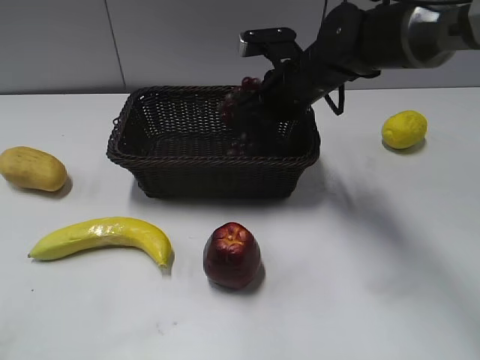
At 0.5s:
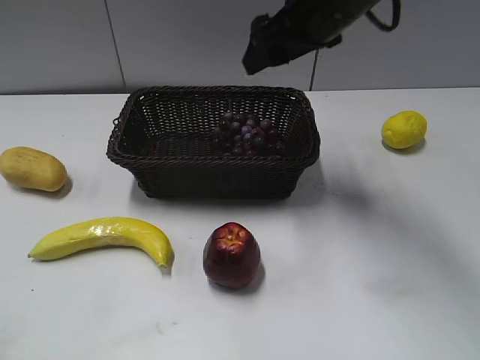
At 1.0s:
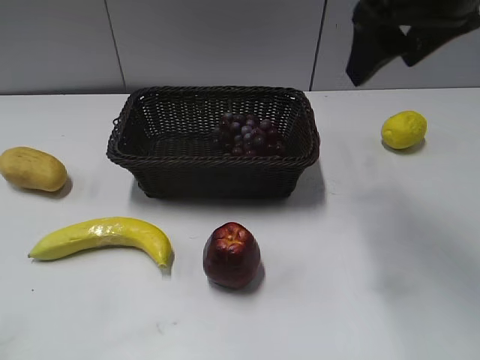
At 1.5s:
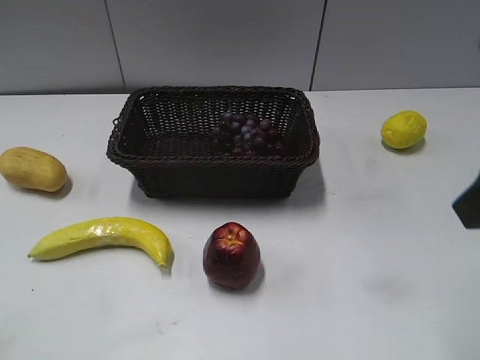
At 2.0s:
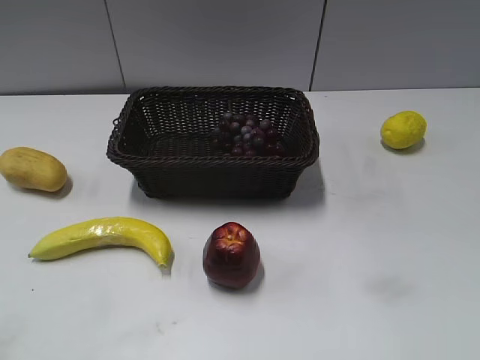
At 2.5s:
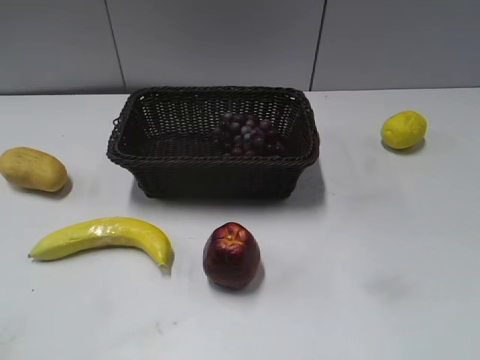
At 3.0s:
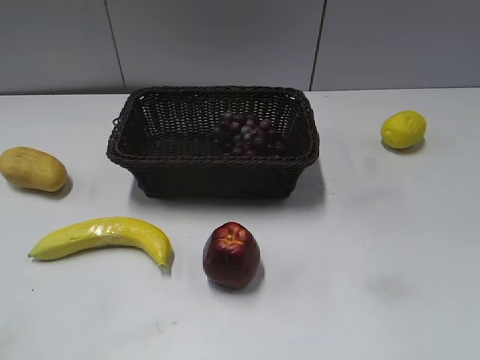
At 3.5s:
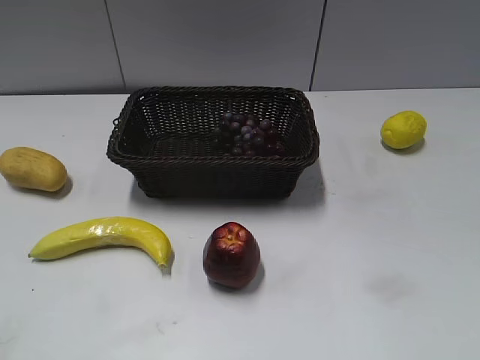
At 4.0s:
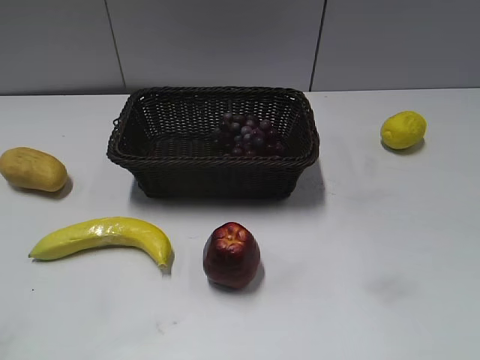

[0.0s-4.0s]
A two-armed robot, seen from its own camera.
0.0s to 2.0s: The right gripper is displaced backward and to the right by roughly 40 cm.

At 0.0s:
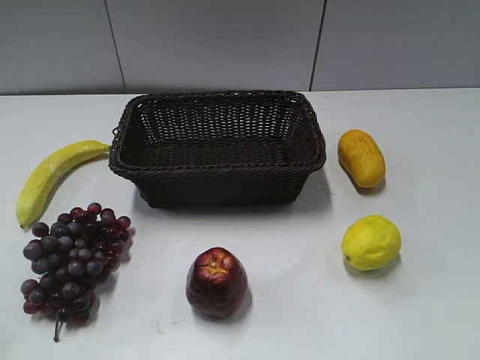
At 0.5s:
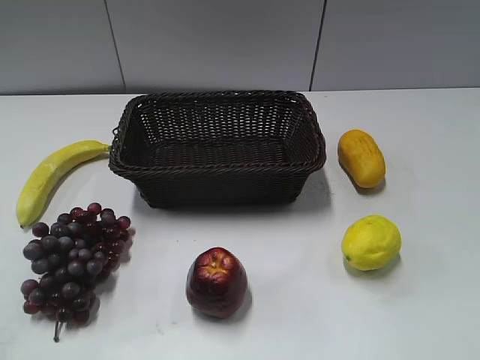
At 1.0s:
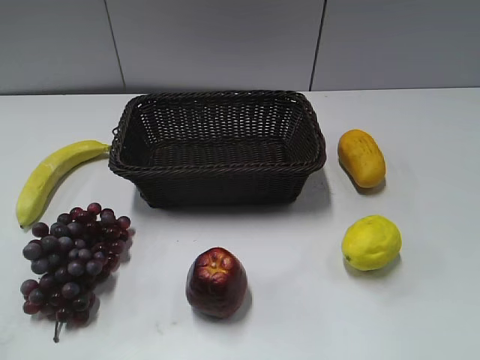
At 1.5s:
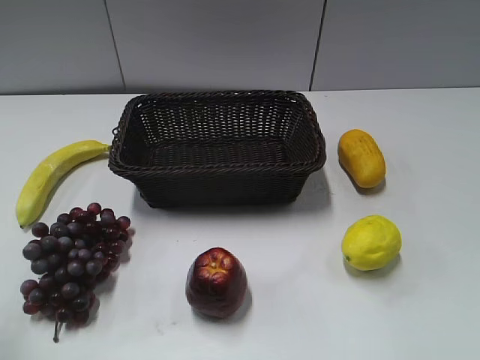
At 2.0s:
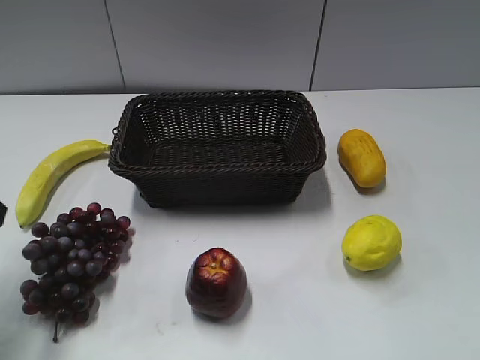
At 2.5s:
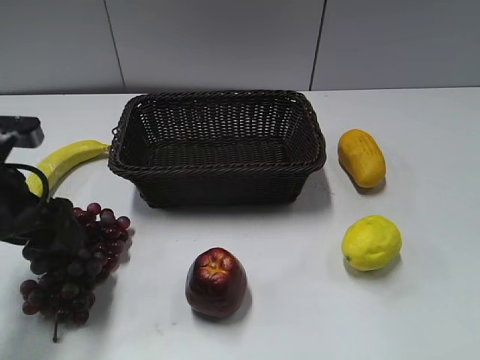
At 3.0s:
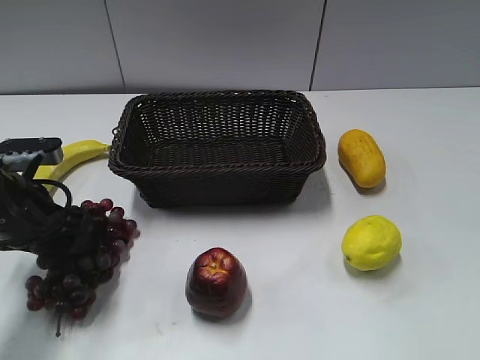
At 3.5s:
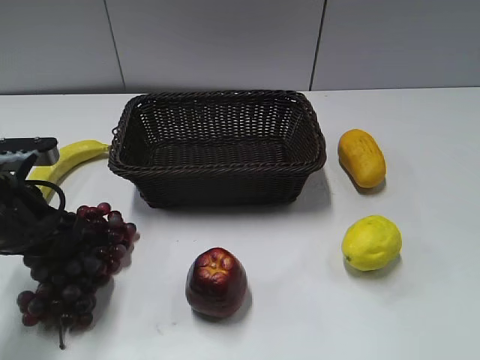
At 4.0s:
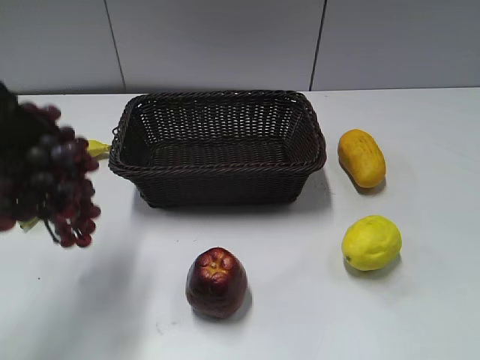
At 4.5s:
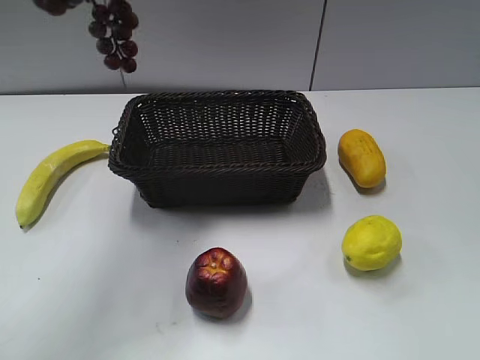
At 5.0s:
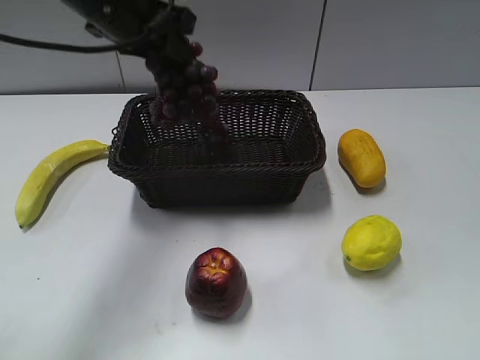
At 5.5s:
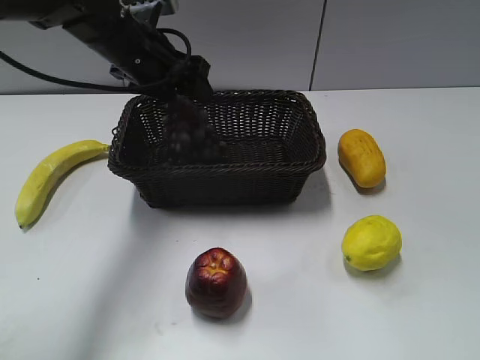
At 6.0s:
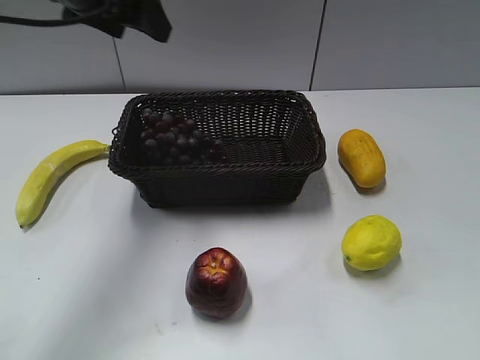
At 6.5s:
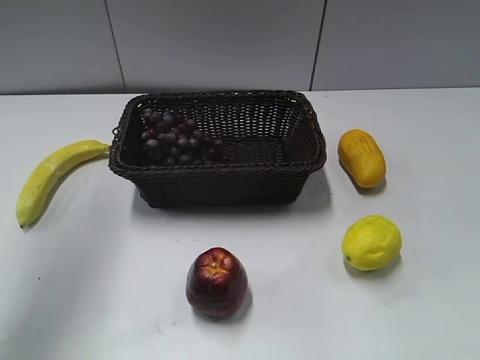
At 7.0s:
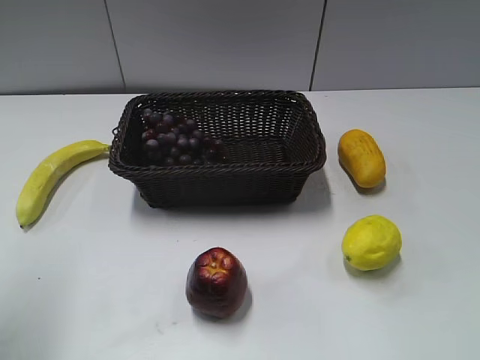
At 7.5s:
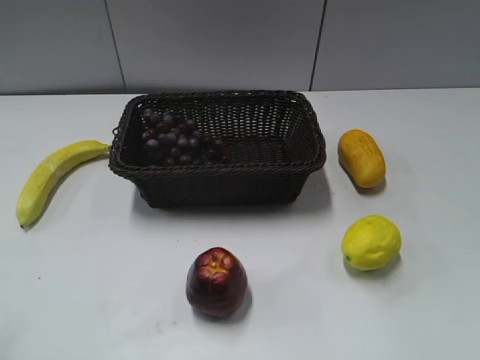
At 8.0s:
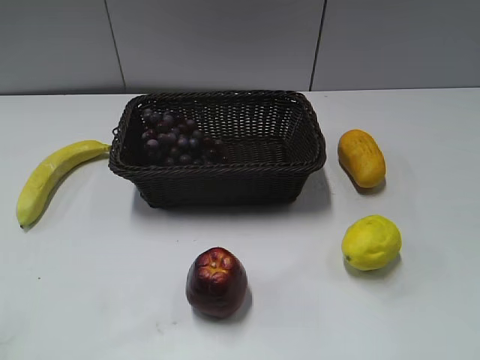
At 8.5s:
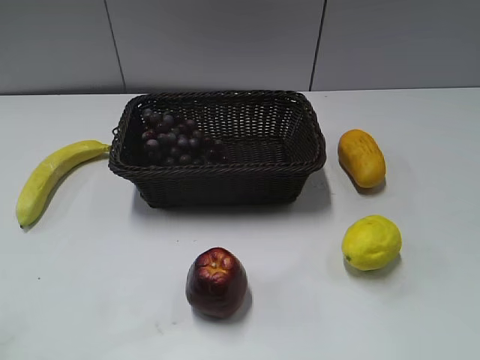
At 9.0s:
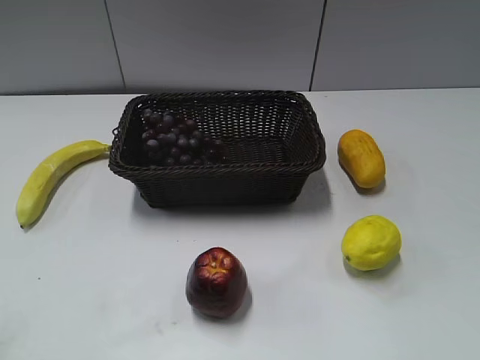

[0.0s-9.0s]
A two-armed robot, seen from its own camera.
Step, 2.0s to 2.5s: Grasp the grape with left gripper.
Step, 3.0s to 5.5s: Place the grape in the basket with left gripper.
2.0s to 4.5s: The left gripper travels upward, forward and to the right by approximately 25 cm, and closes its fingers.
4.5s to 7.0s: The left gripper shifts approximately 20 cm backward, to the left and downward, and opens up.
7.0s to 9.0s: The left gripper heads backward and downward, covering roughly 20 cm.
